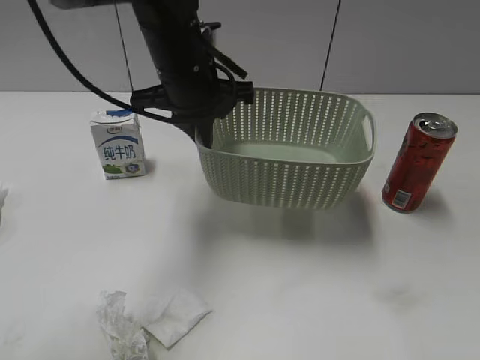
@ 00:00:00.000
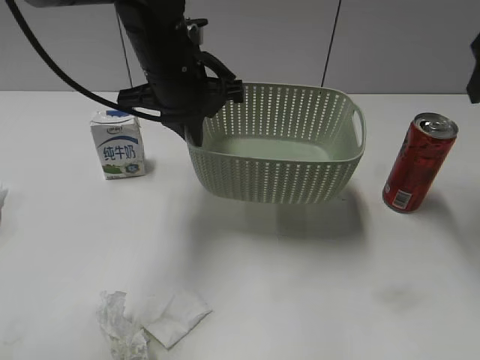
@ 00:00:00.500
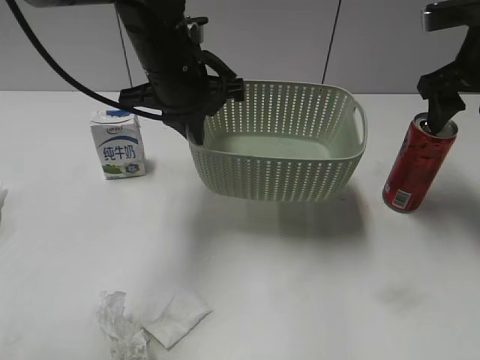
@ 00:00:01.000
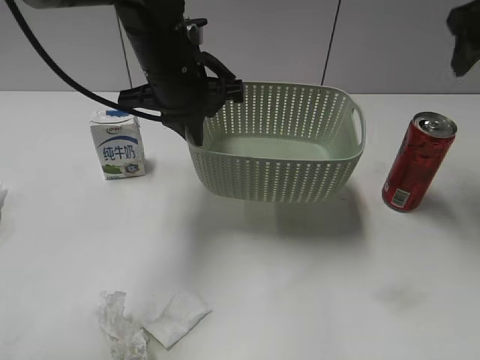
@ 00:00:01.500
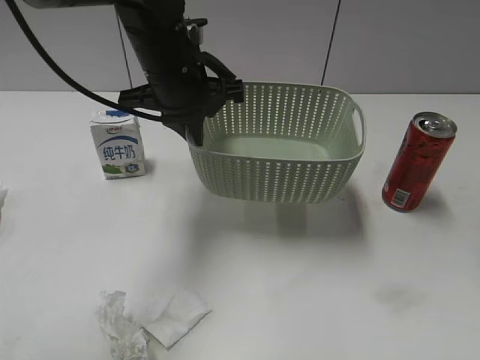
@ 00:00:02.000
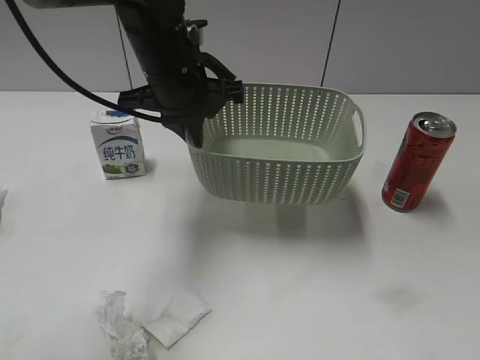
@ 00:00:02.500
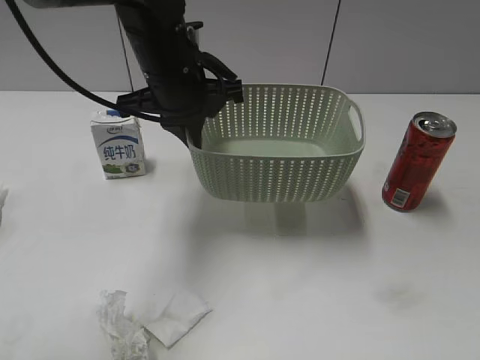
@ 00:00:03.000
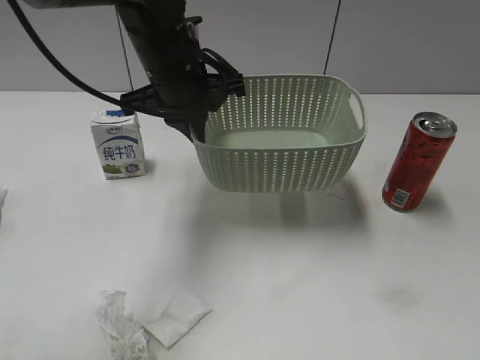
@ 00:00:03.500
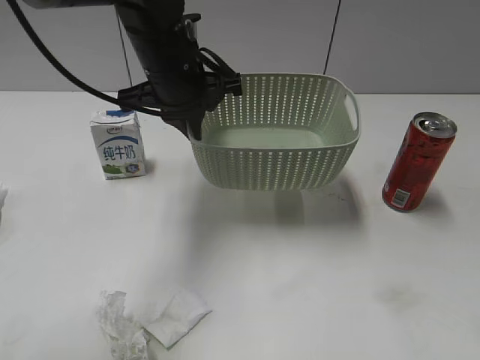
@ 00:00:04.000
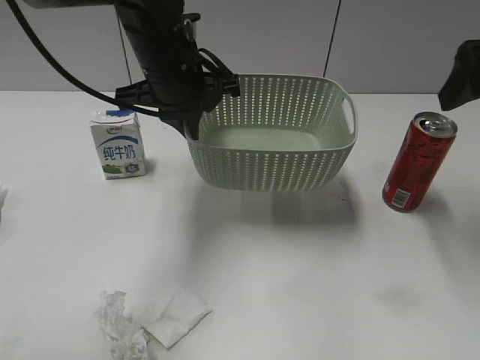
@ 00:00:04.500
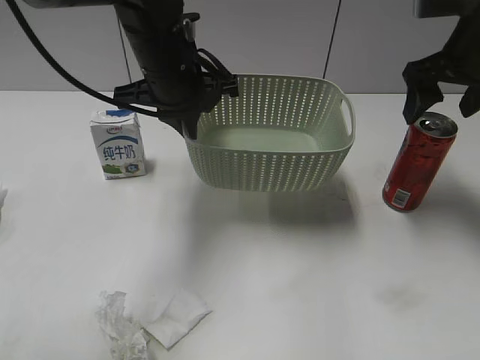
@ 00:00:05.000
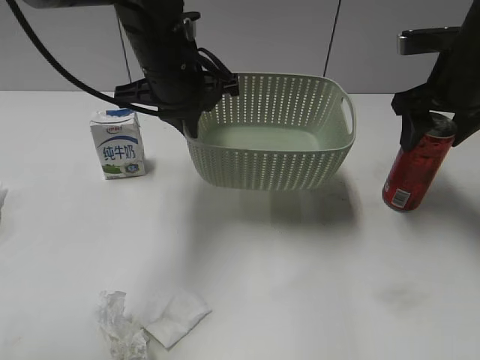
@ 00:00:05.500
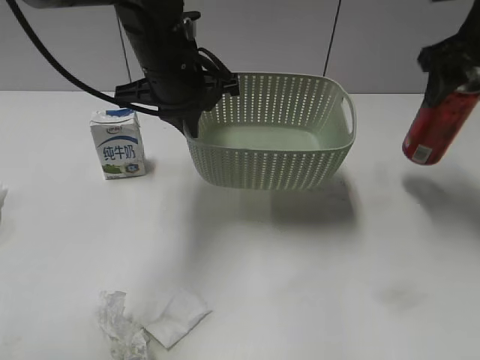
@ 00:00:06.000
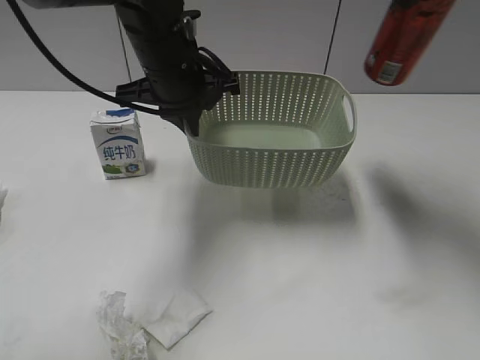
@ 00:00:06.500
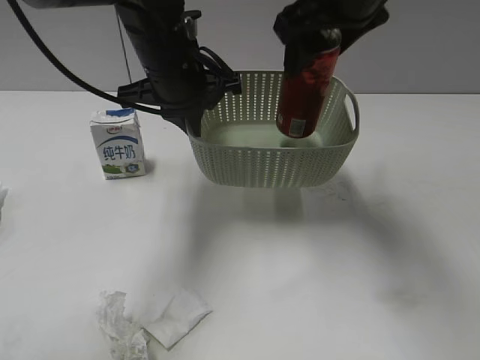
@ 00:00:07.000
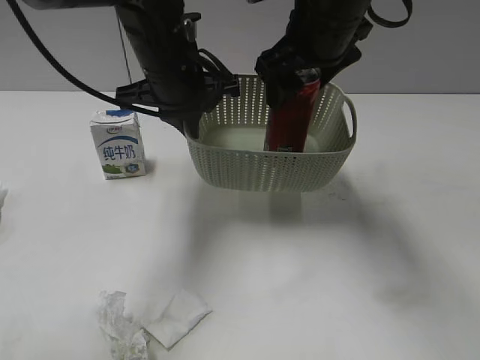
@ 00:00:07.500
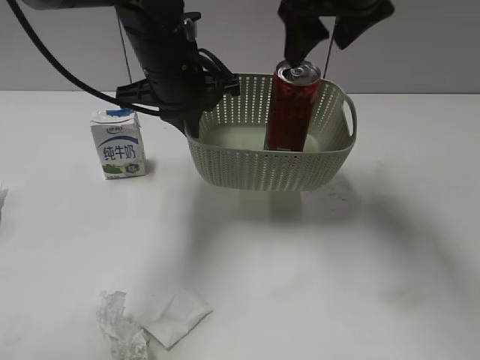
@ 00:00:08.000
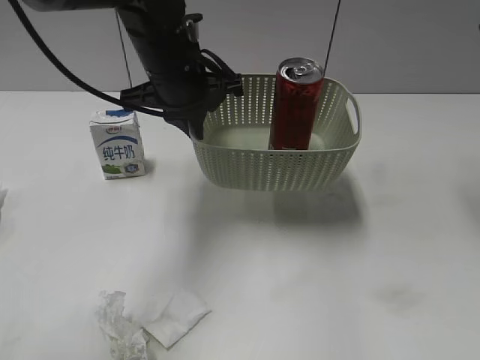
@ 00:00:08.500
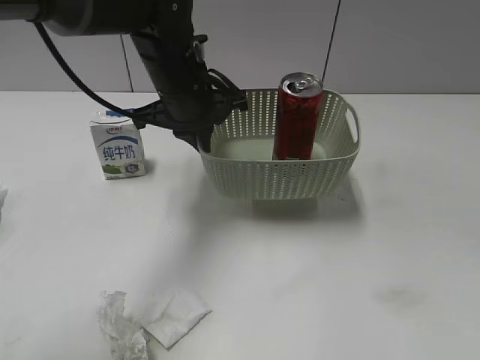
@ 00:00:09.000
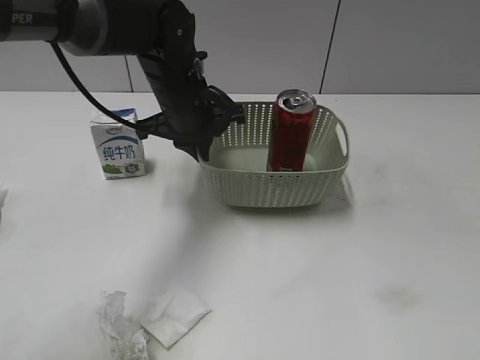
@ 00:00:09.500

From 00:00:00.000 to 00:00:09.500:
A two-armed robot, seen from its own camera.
Step, from 00:00:00.500 to 00:00:05.500: Grasp the cola can with right gripper.
Step, from 00:00:06.000 to 00:00:07.500: Place the cola can in the basket with right gripper.
From 00:00:00.000 to 00:00:02.000: The right gripper moves forward, some 15 cm.
From 00:00:02.000 to 00:00:04.000: The right gripper shifts some 15 cm backward and downward, and opens its fingers.
From 00:00:04.000 to 00:00:05.500: The right gripper heads forward, covering roughly 25 cm, and closes.
From 00:00:05.500 to 00:00:07.500: The right gripper travels to the left by roughly 15 cm.
From 00:00:07.500 to 00:00:09.500: The left gripper is displaced downward by some 5 cm, while the right gripper shifts about 40 cm backward and to the right.

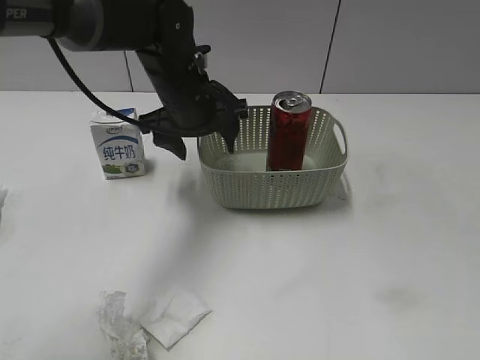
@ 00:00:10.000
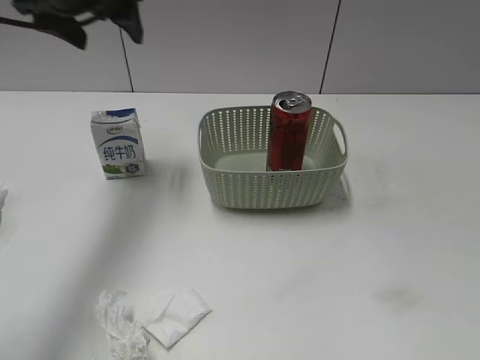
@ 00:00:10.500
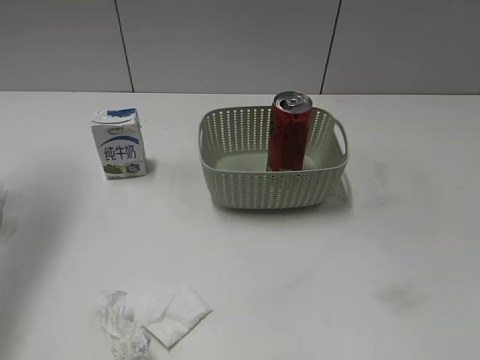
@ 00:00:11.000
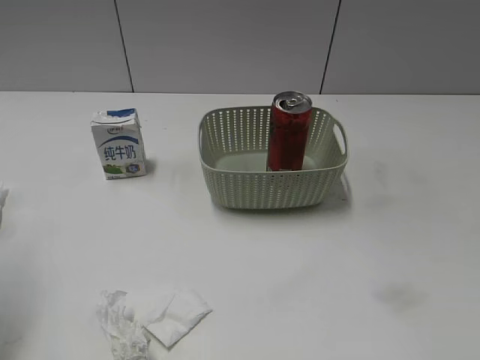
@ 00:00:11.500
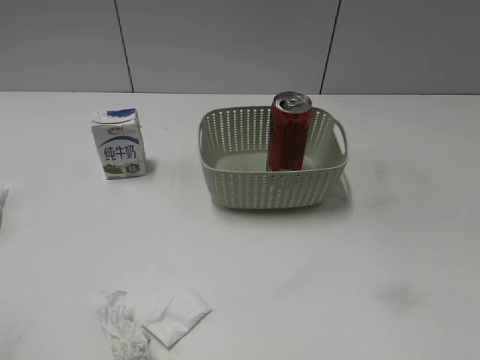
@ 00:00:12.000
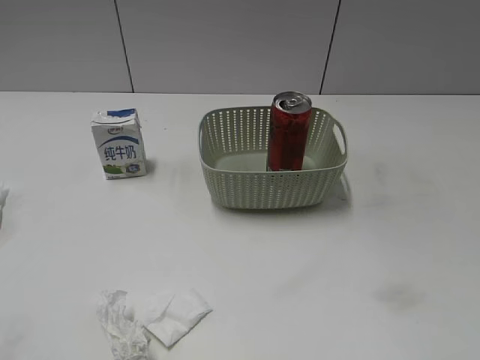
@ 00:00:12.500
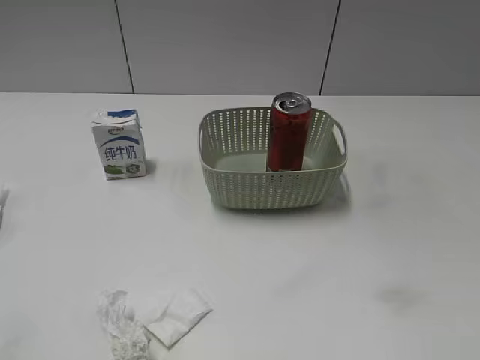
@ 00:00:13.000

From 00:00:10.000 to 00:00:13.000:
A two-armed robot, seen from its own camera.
From 00:00:10.000 to 00:00:11.500: The left gripper heads to the left, backward and upward, covering approximately 35 cm.
From 00:00:11.500 to 00:00:13.000: The left gripper travels backward by approximately 20 cm.

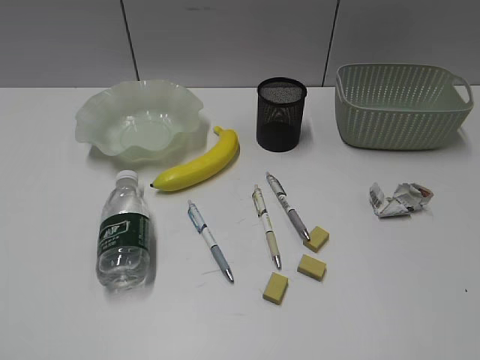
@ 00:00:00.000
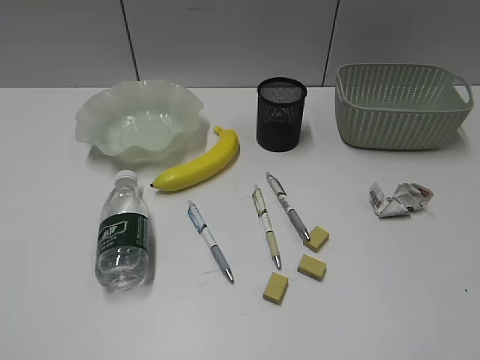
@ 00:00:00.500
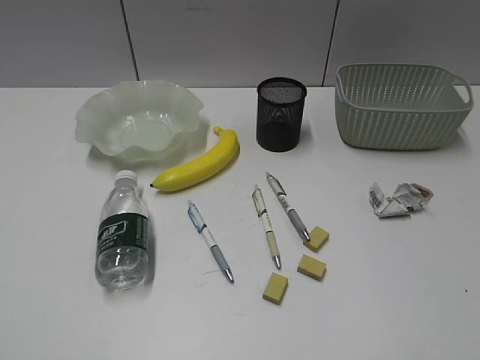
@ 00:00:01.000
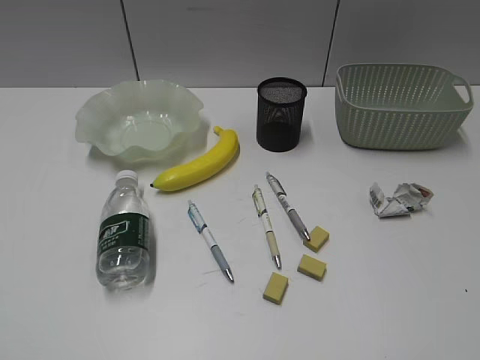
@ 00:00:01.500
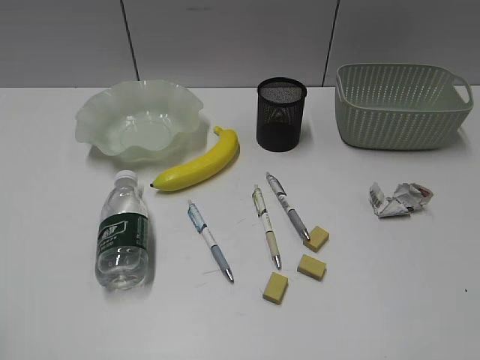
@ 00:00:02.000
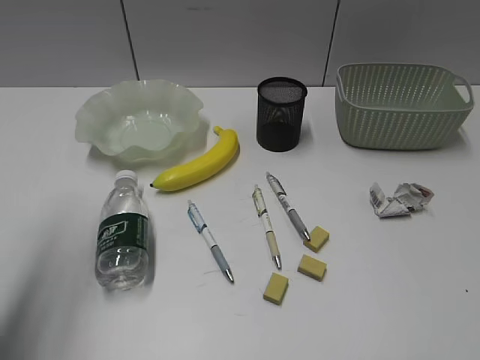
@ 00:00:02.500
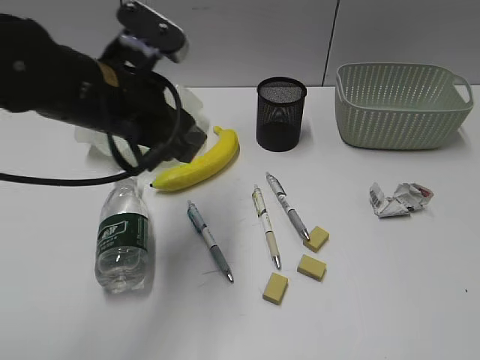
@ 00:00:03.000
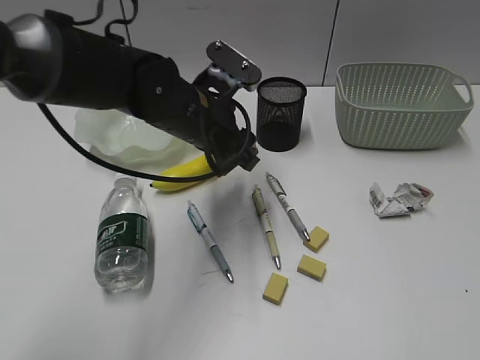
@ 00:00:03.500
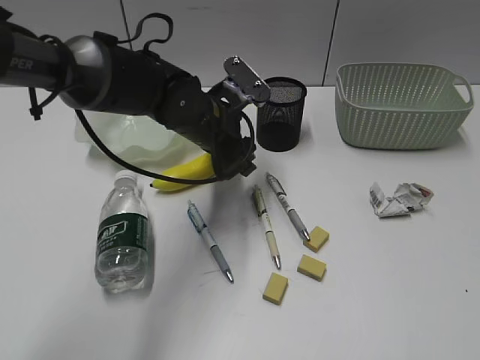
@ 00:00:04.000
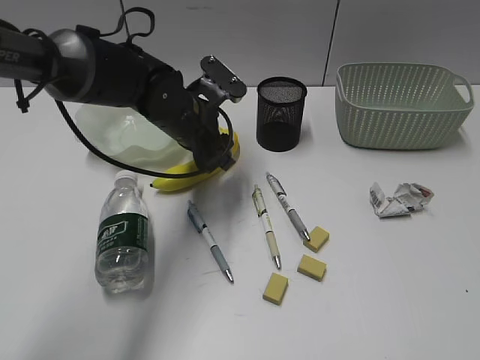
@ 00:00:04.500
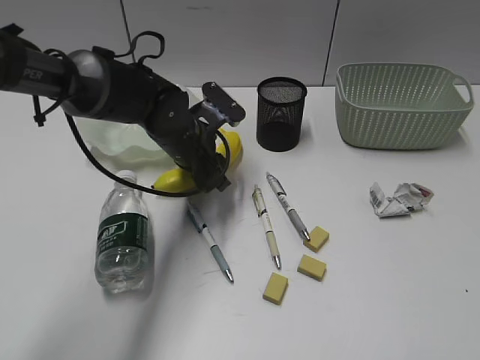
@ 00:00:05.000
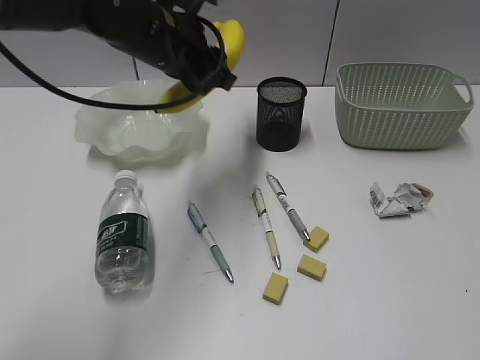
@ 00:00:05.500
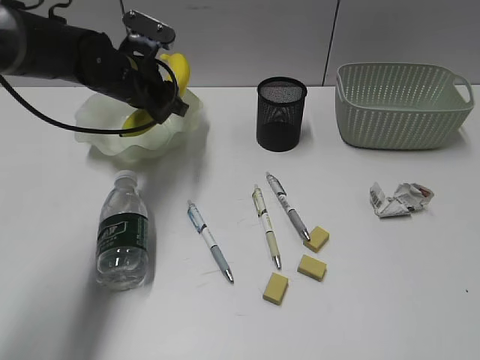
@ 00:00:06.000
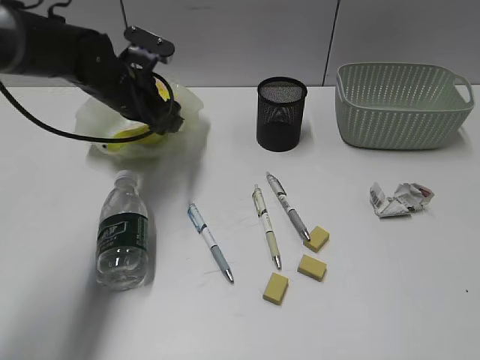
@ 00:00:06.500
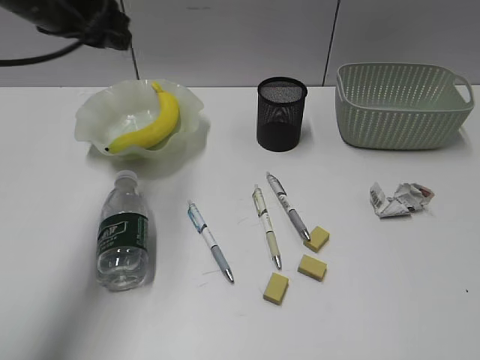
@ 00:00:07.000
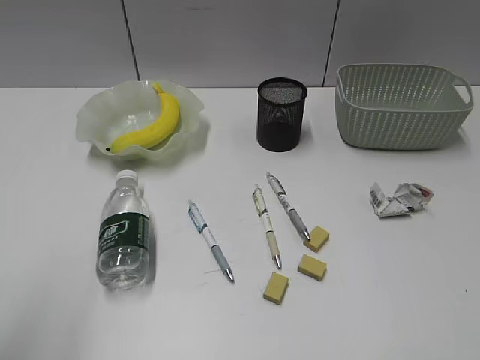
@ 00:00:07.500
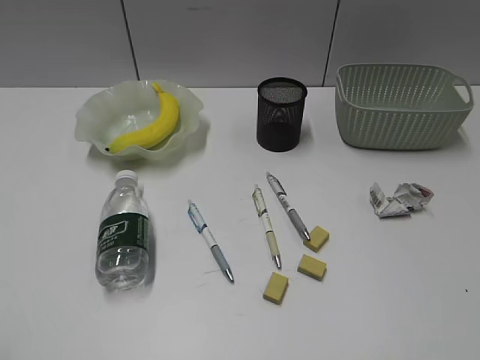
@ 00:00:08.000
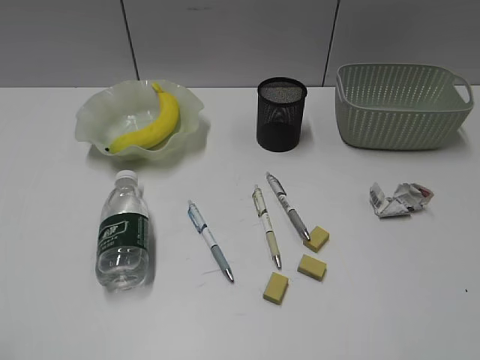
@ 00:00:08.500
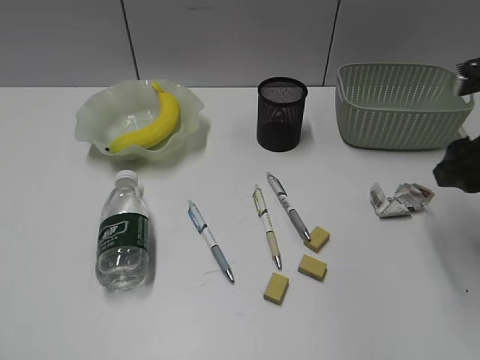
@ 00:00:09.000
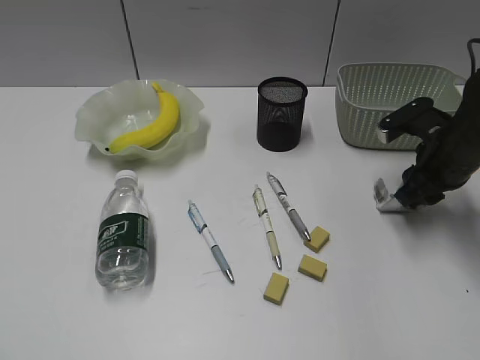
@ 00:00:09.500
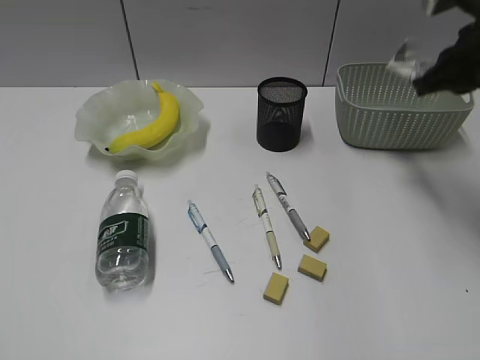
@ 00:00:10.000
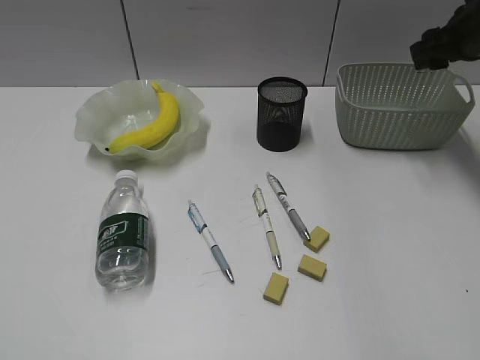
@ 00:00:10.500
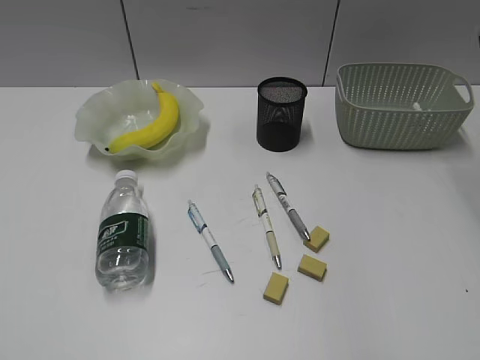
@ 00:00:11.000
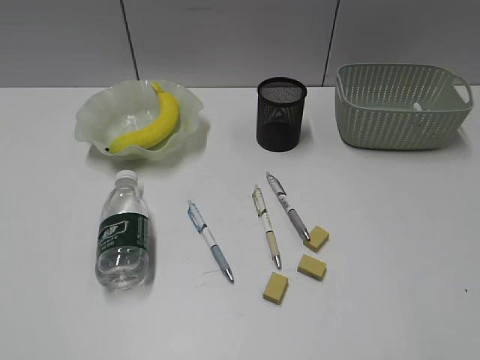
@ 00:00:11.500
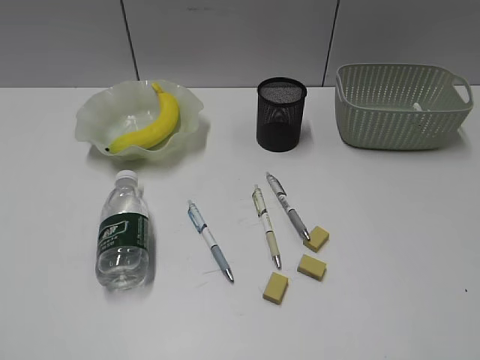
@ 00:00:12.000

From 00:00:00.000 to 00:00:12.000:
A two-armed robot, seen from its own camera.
Step, from 00:00:02.000 to 00:00:05.000: Grasp the banana with left gripper.
Step, from 00:00:05.500 to 00:00:06.500: Place the banana in the plate with left gripper.
Step, from 00:00:07.000 to 00:00:09.500: Grasp the waste paper with right gripper.
Step, from 00:00:10.000 to 00:00:10.500: Place the waste paper in the basket with right gripper.
From 00:00:02.000 to 00:00:04.000: The left gripper heads forward and to the right, covering approximately 50 cm, and opens.
From 00:00:04.000 to 00:00:06.000: The left gripper goes some 10 cm to the left and forward, and travels upward and back again, roughly 10 cm each way.
From 00:00:06.000 to 00:00:08.000: The left gripper travels backward and to the left by approximately 50 cm.
From 00:00:08.000 to 00:00:10.000: The right gripper travels forward by approximately 35 cm, and closes.
From 00:00:10.000 to 00:00:12.000: The right gripper goes approximately 35 cm backward, and opens up.
